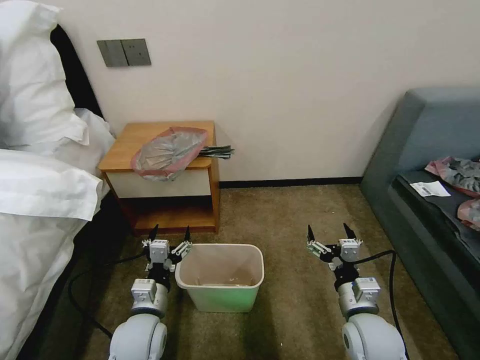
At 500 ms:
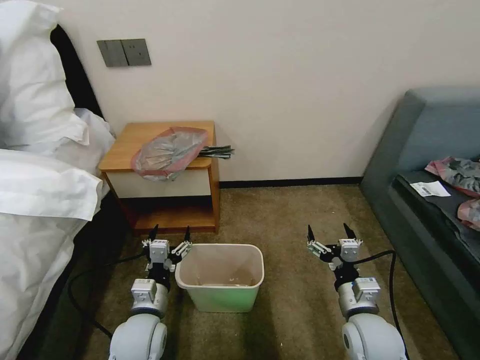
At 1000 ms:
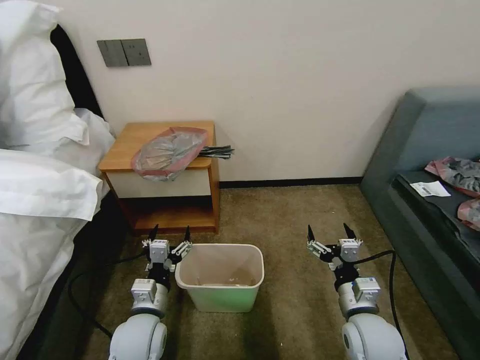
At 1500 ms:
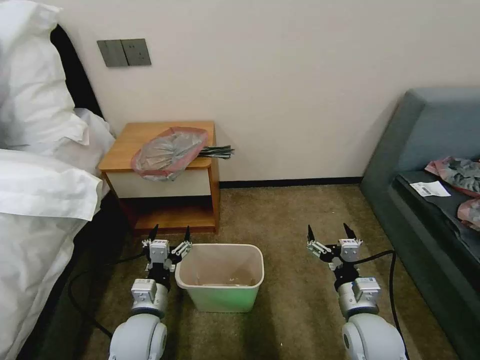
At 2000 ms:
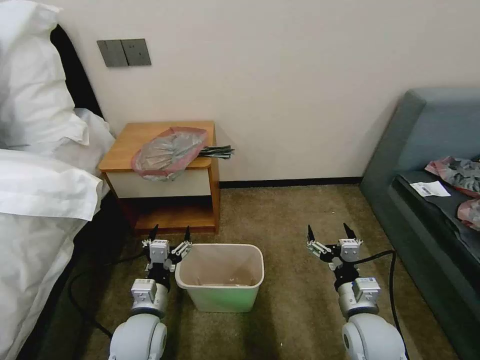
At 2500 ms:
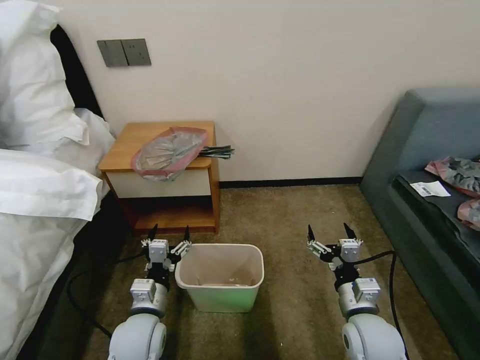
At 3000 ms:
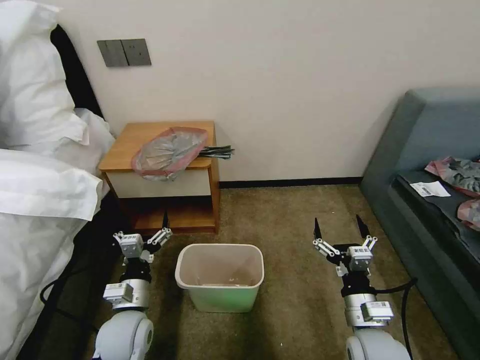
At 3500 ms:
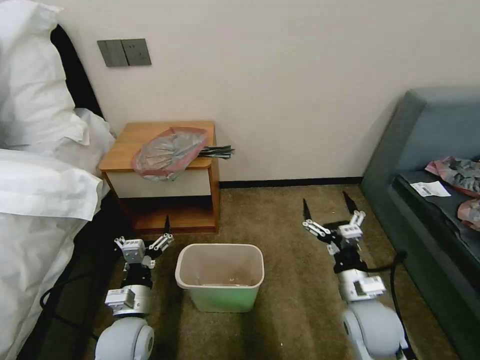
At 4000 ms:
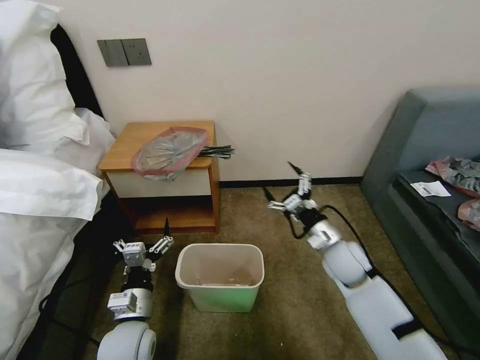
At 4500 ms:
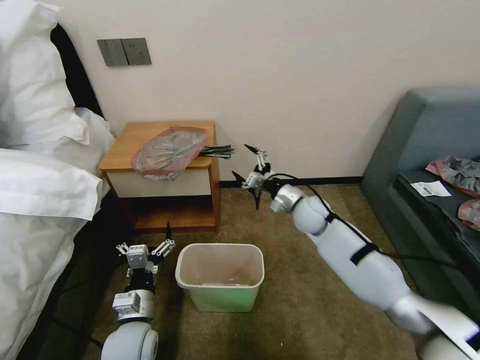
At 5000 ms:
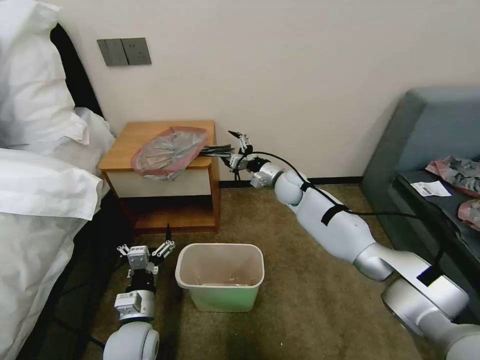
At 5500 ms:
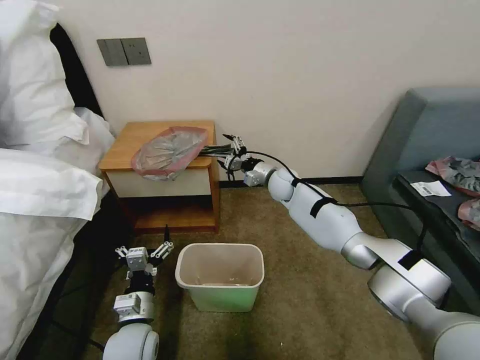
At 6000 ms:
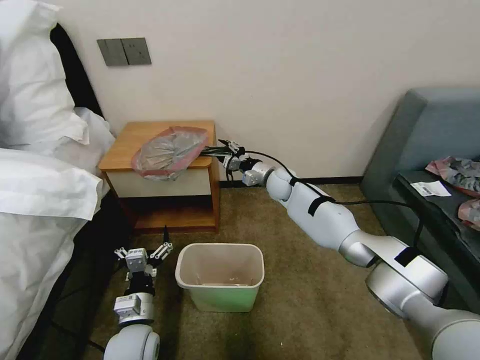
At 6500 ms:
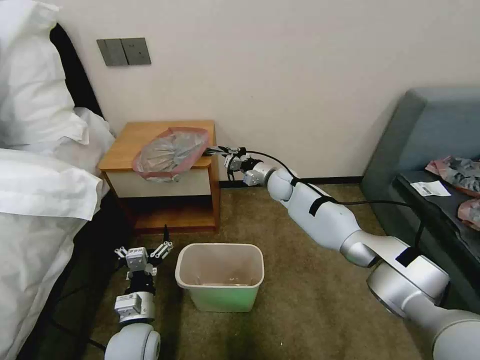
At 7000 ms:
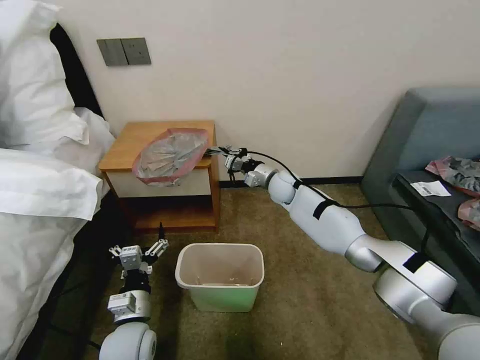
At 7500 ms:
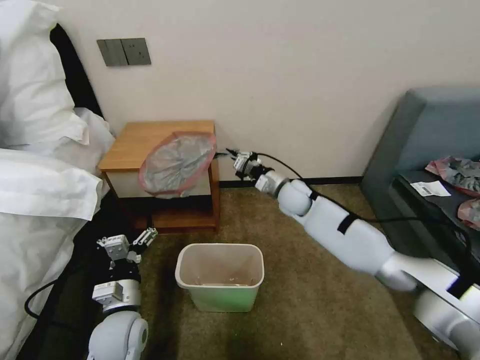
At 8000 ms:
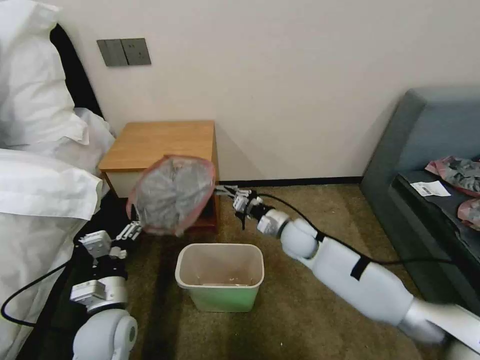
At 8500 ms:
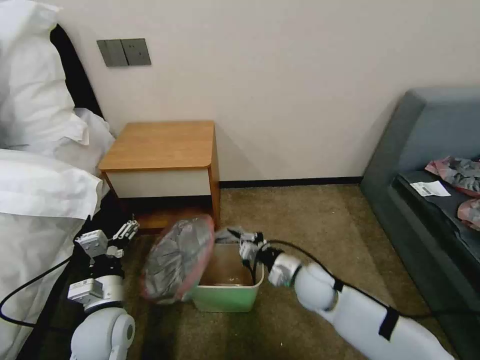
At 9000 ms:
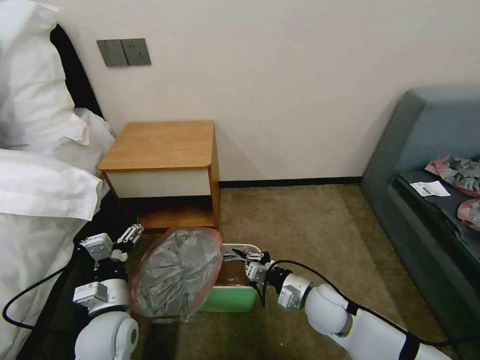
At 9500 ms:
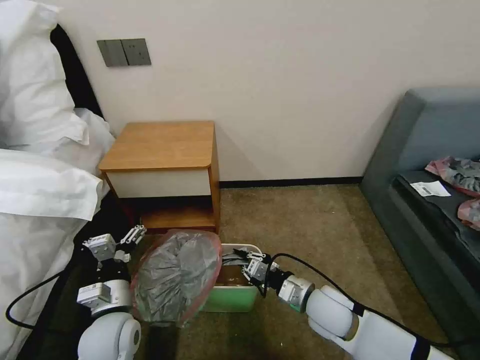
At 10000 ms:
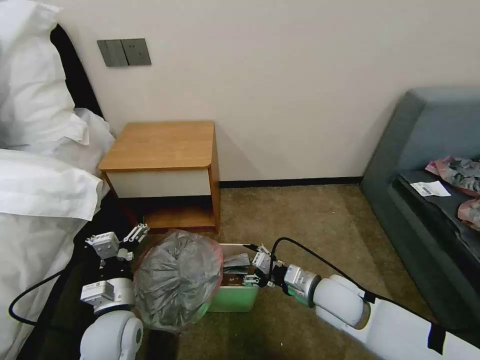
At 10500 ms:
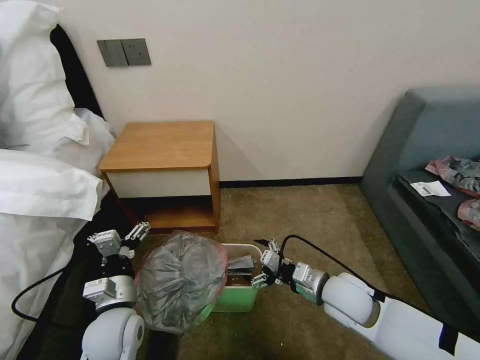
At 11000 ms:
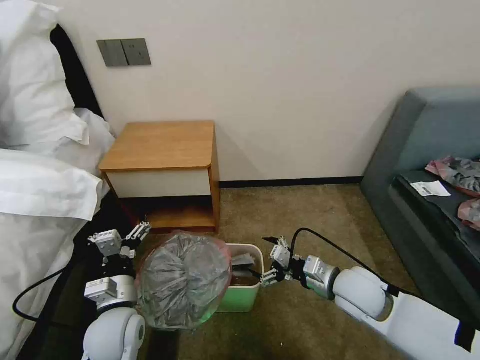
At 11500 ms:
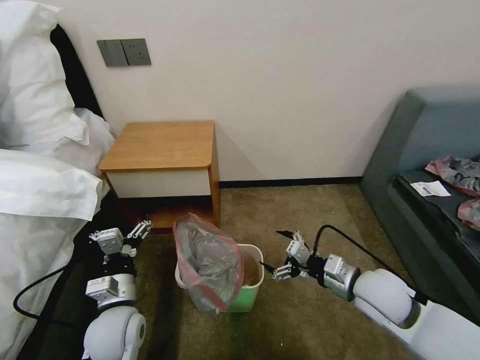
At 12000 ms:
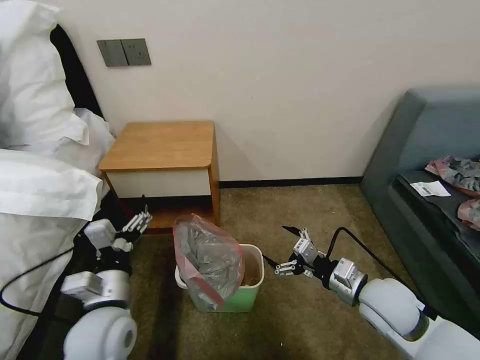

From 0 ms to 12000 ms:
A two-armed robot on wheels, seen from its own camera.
Task of the whole recording: Pick up the garbage bag from the table and place it over the trash can.
From 2000 ms to 4000 ms: The right gripper moves forward, some 15 cm.
From 4000 ms to 6000 ms: The right gripper heads forward and to the left, covering about 25 cm, and closes up.
From 6000 ms to 8000 ms: The right gripper travels backward by approximately 15 cm, and closes; the left gripper moves upward, some 5 cm.
From 8000 ms to 10000 ms: The right gripper goes some 15 cm backward, and opens.
From 10000 ms to 12000 ms: The right gripper moves to the right, roughly 10 cm. Meanwhile the left gripper travels upward by roughly 5 cm.

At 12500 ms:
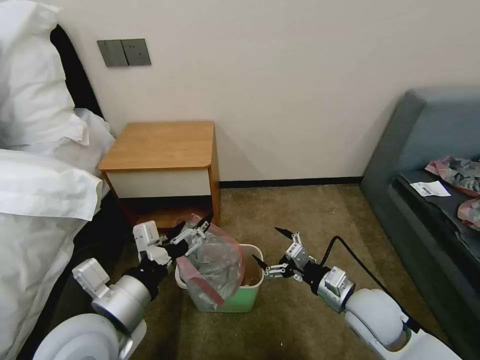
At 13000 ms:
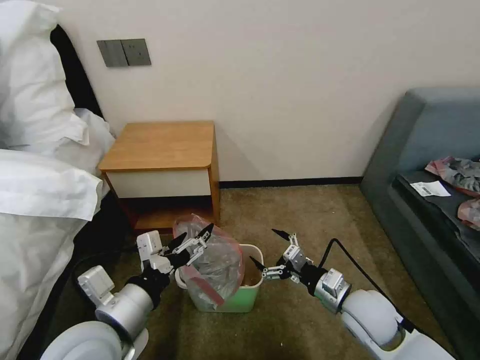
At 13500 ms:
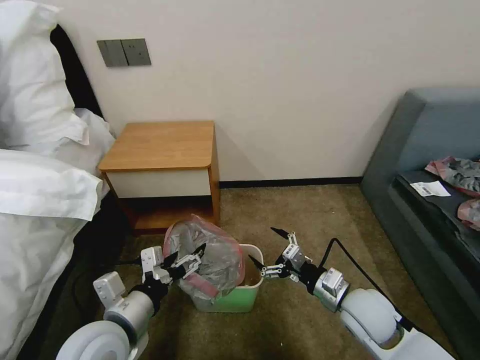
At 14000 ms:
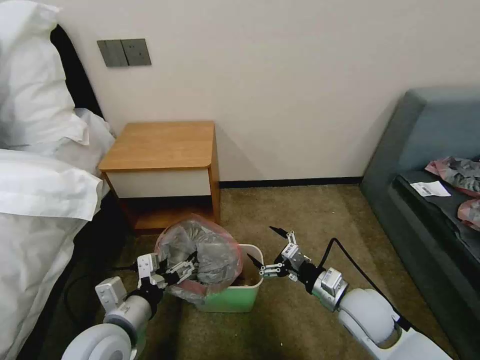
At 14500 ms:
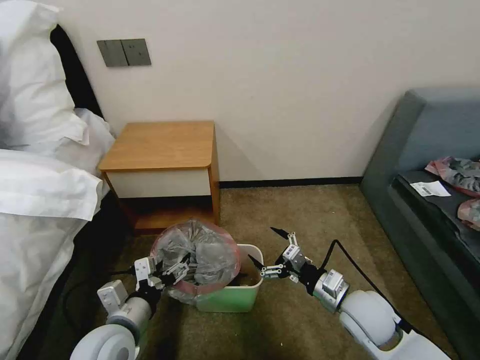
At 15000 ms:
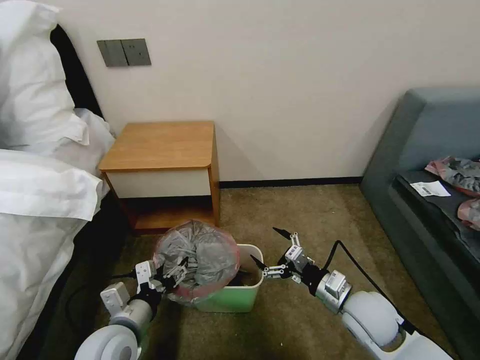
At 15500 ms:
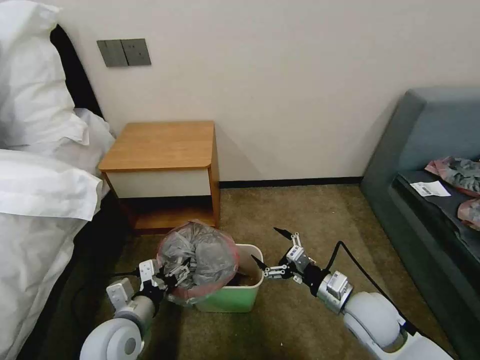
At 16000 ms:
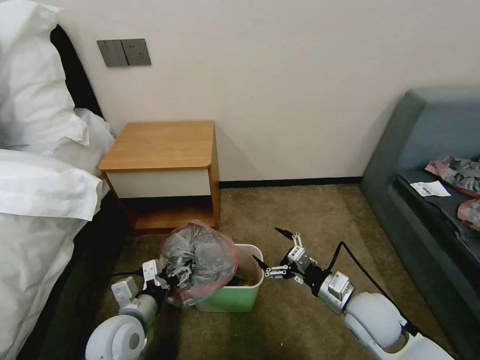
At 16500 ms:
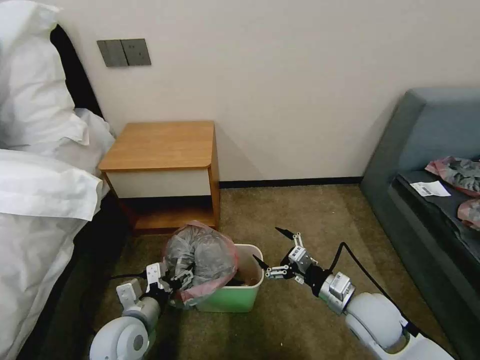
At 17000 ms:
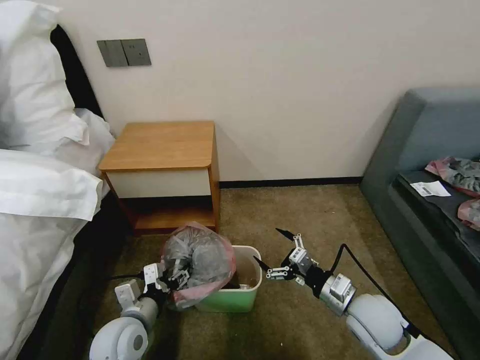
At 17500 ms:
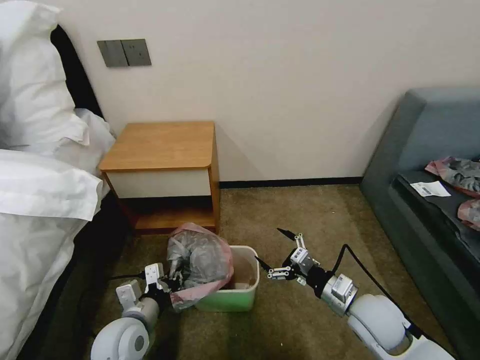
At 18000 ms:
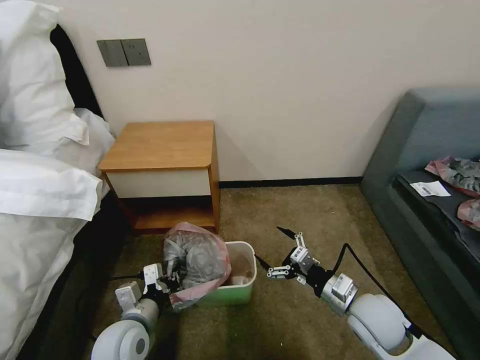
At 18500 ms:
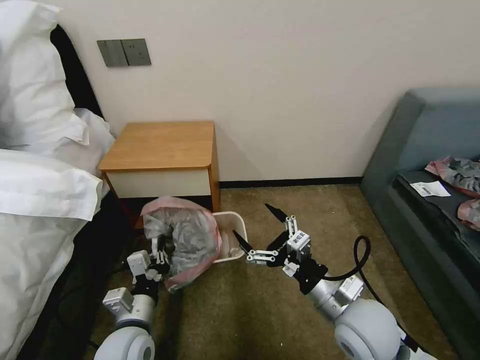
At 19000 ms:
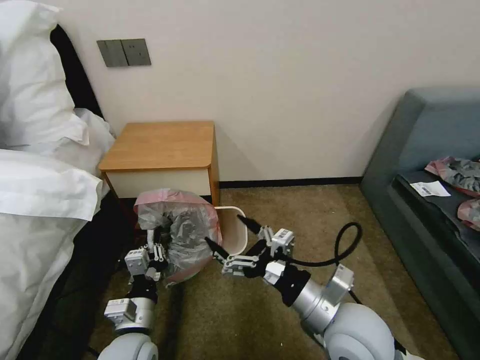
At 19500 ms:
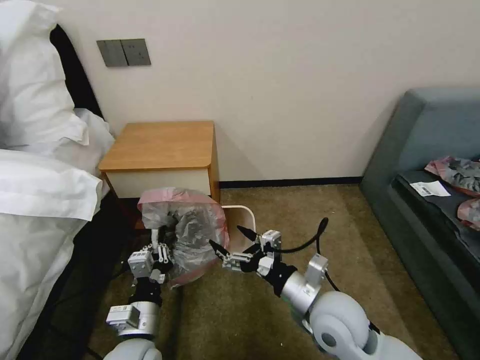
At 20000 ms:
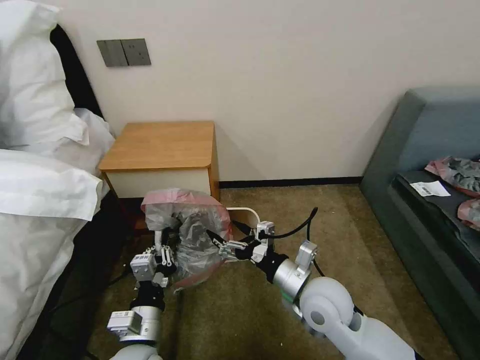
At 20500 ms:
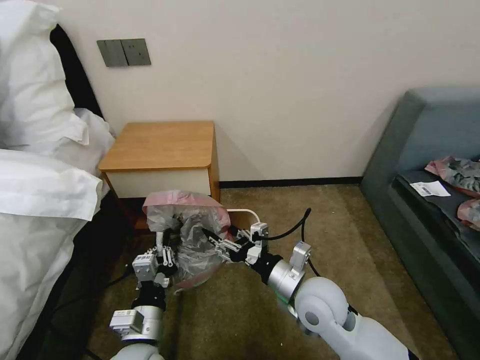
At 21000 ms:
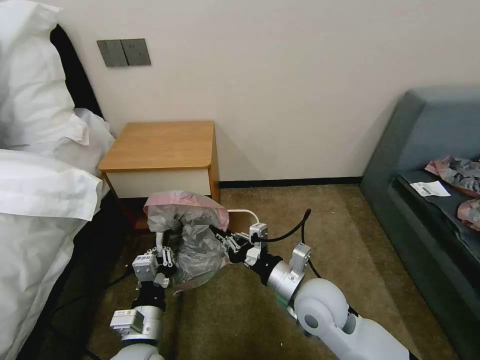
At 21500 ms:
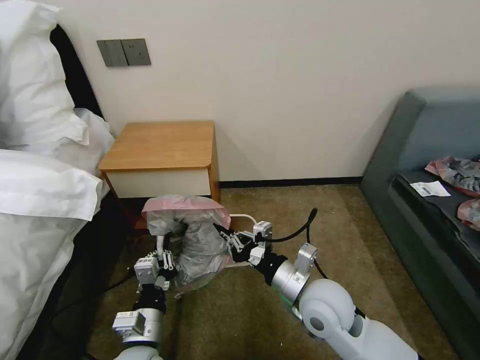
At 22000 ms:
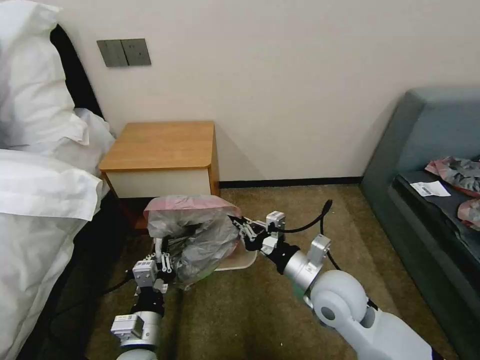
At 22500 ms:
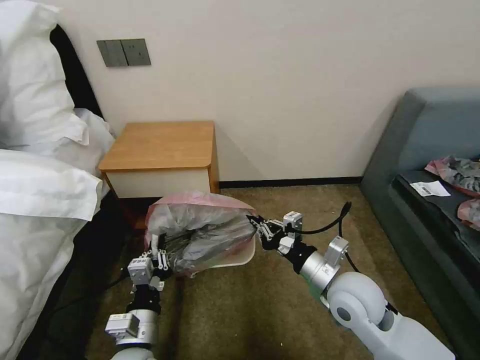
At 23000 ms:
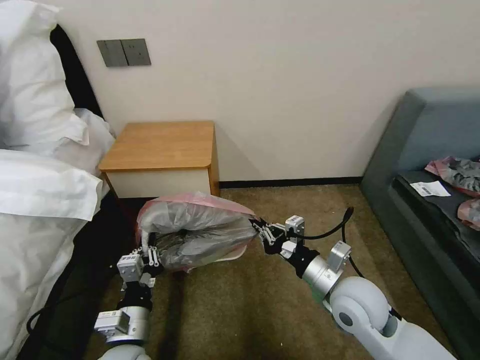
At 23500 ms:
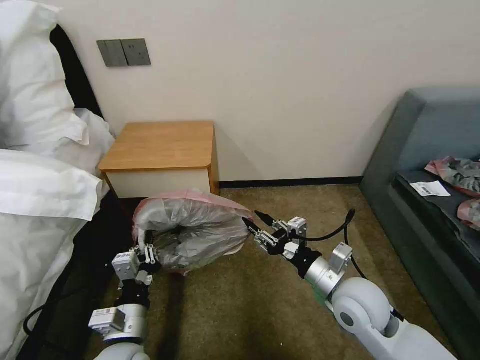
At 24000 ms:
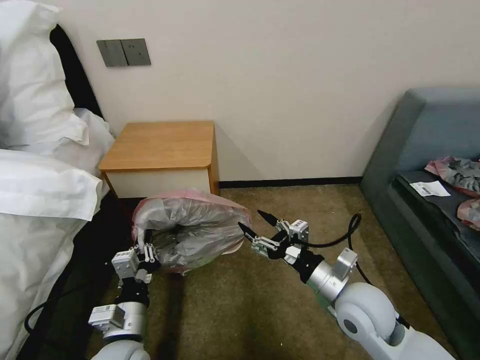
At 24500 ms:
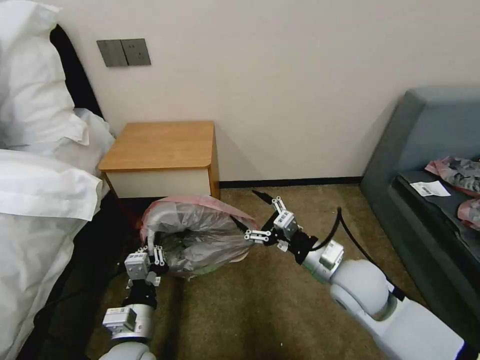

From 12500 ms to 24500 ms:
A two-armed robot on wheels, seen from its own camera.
Task of the whole recording: Pick up the garbage bag from the table and place it over the trash can.
From 12500 ms to 14500 ms: The left gripper goes roughly 10 cm downward.
From 14500 ms to 16500 ms: The left gripper shifts by about 5 cm.
From 16500 ms to 18500 ms: The right gripper moves upward, some 5 cm, while the left gripper closes.
From 18500 ms to 20500 ms: The right gripper goes approximately 5 cm to the left.
From 20500 ms to 22500 ms: The right gripper is displaced to the right by roughly 5 cm, and closes its fingers.
From 22500 ms to 24500 ms: The right gripper opens.

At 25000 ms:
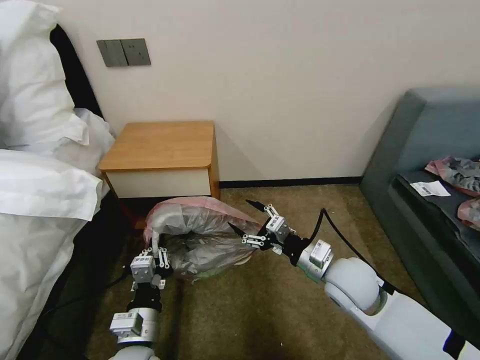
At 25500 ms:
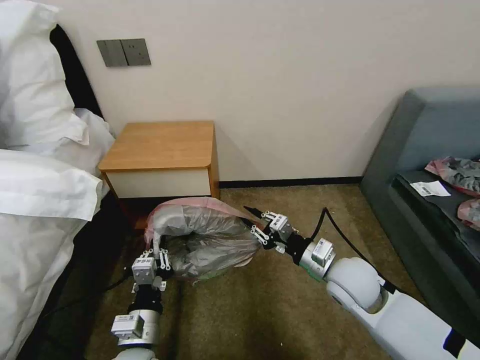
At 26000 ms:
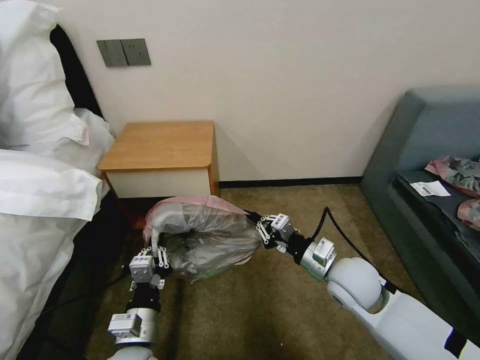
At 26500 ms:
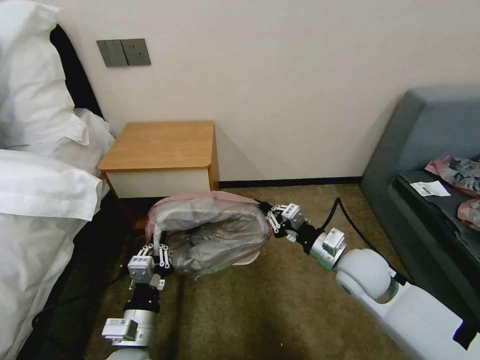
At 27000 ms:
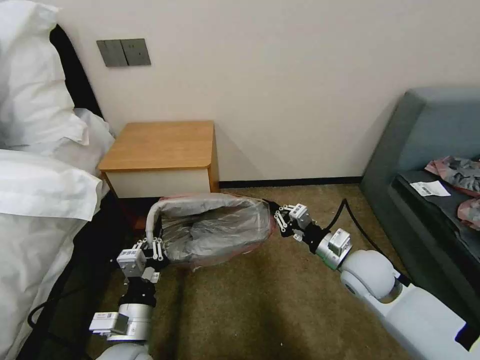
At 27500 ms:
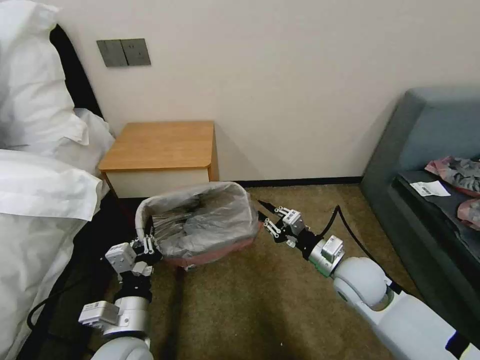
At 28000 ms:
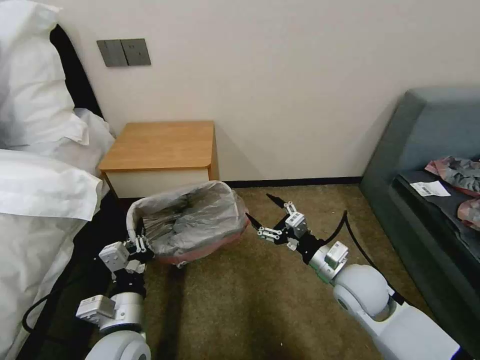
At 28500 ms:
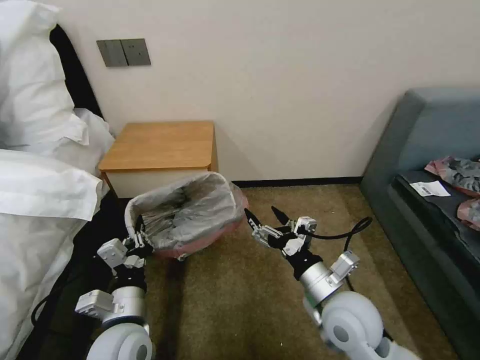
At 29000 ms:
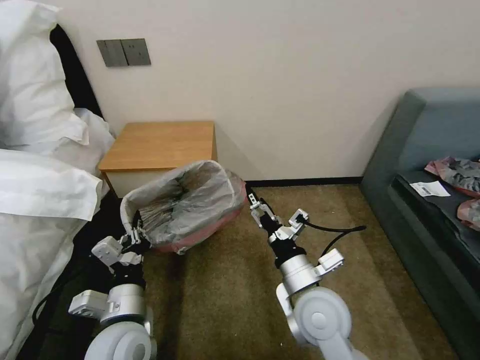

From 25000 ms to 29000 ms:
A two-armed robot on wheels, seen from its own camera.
Task of the whole recording: Pick up the garbage bag from the table and place it over the trash can.
From 25000 ms to 27000 ms: The right gripper changes place by about 5 cm, and closes up.
From 27000 ms to 29000 ms: The right gripper goes roughly 15 cm to the left and backward, and opens.
